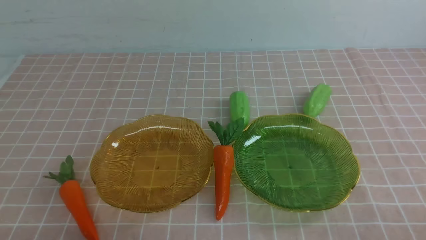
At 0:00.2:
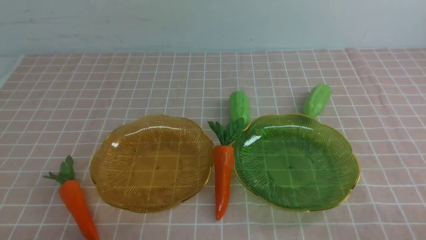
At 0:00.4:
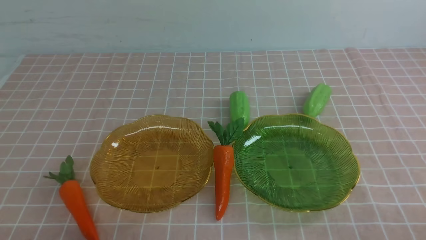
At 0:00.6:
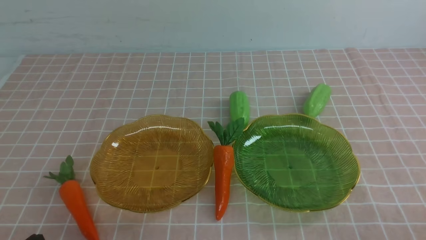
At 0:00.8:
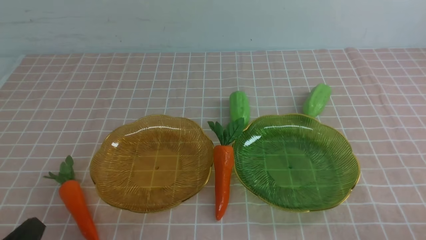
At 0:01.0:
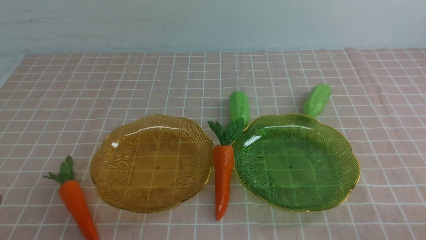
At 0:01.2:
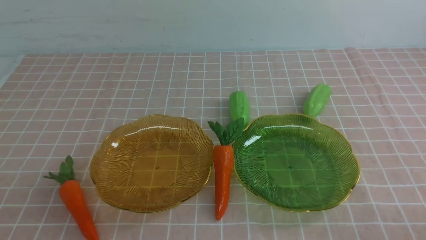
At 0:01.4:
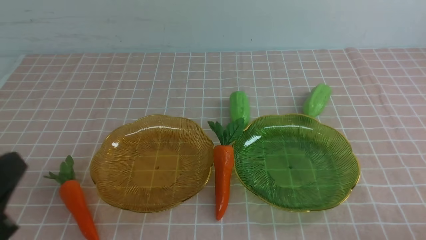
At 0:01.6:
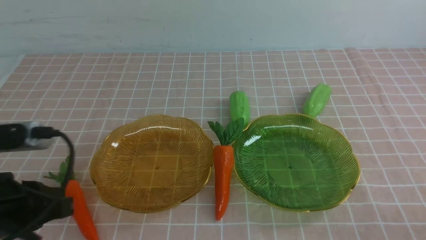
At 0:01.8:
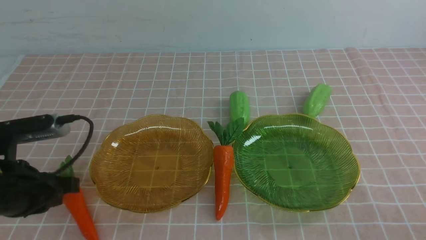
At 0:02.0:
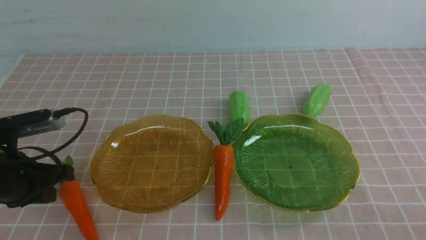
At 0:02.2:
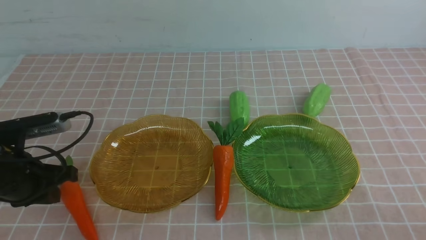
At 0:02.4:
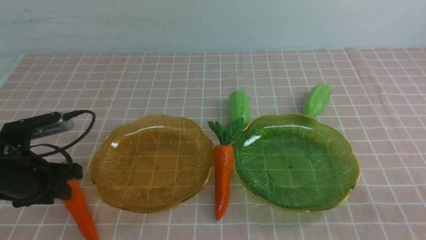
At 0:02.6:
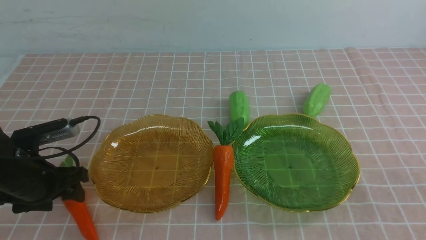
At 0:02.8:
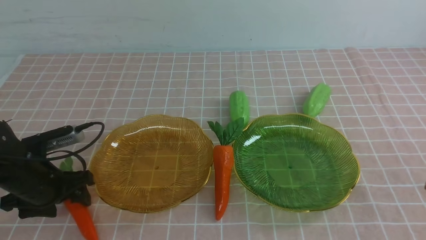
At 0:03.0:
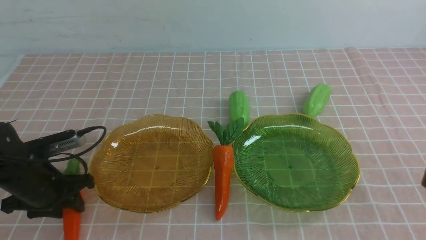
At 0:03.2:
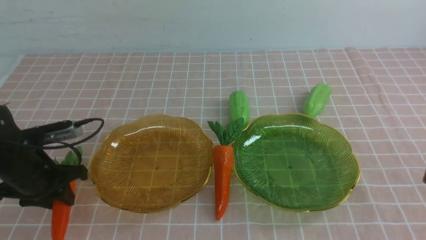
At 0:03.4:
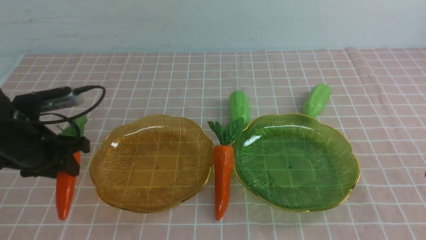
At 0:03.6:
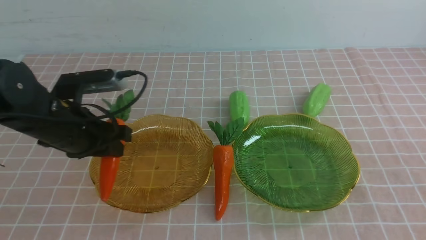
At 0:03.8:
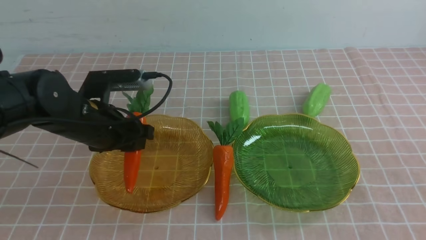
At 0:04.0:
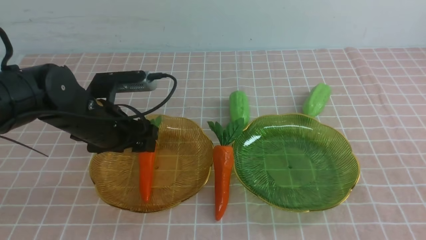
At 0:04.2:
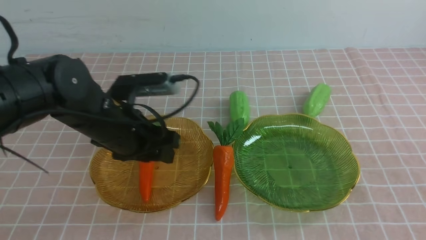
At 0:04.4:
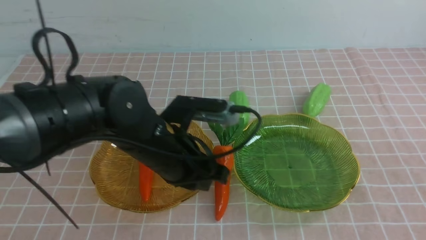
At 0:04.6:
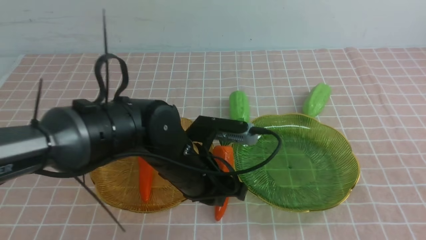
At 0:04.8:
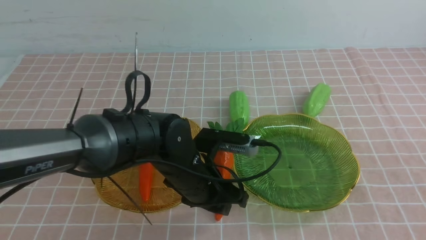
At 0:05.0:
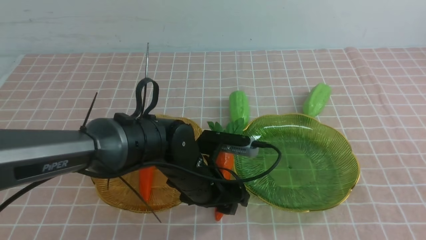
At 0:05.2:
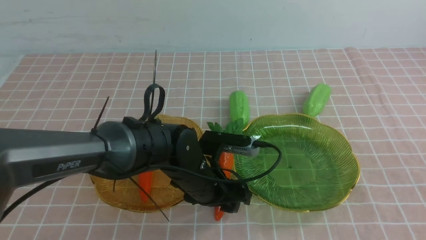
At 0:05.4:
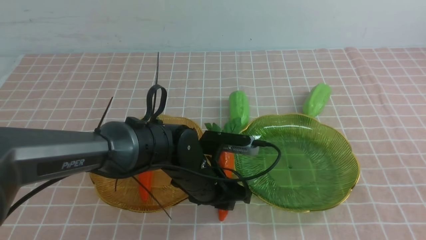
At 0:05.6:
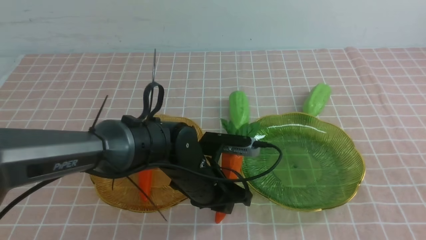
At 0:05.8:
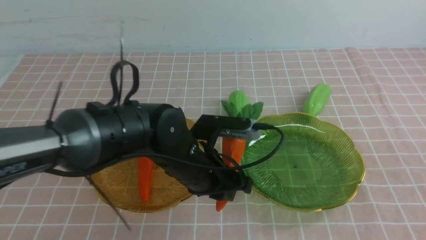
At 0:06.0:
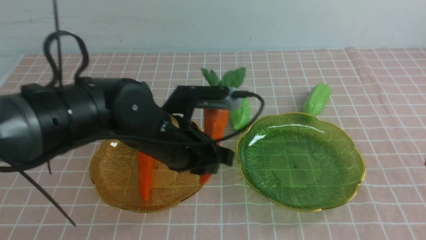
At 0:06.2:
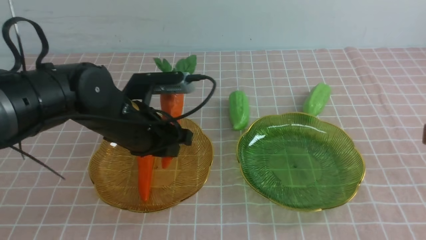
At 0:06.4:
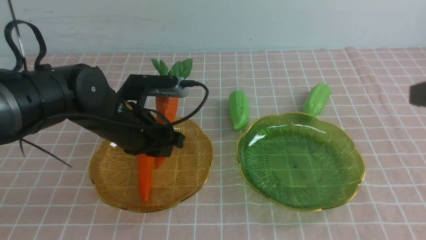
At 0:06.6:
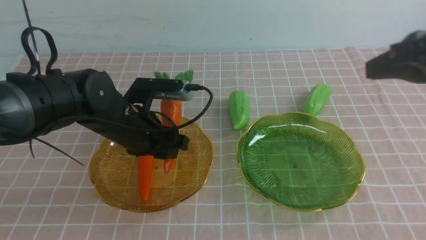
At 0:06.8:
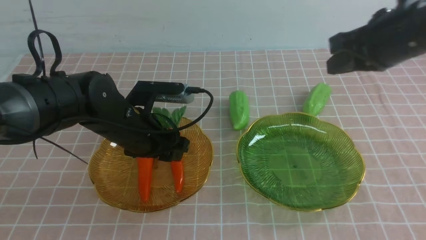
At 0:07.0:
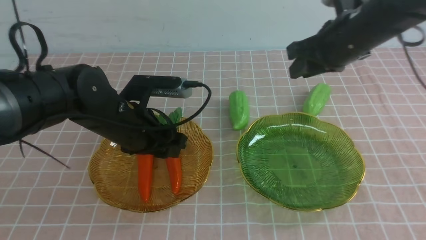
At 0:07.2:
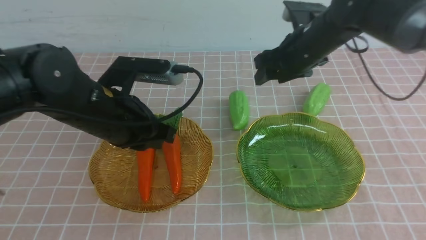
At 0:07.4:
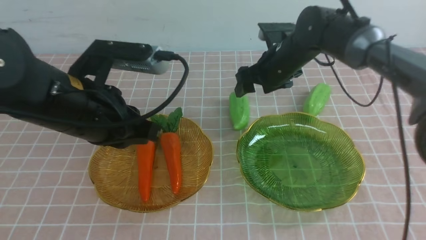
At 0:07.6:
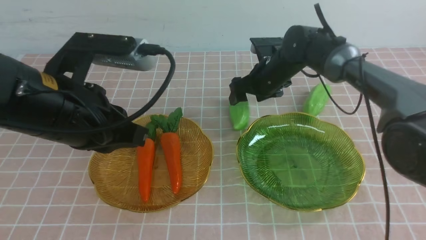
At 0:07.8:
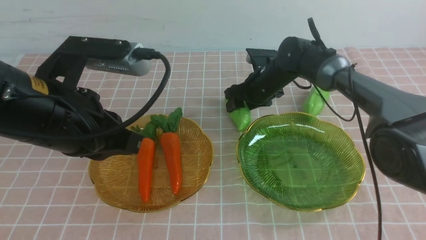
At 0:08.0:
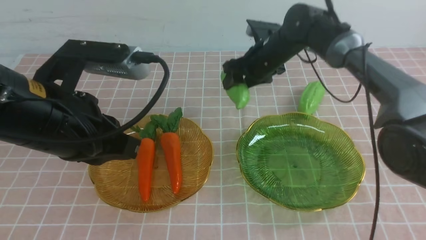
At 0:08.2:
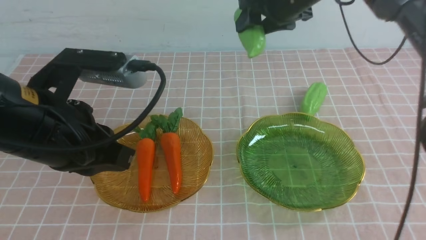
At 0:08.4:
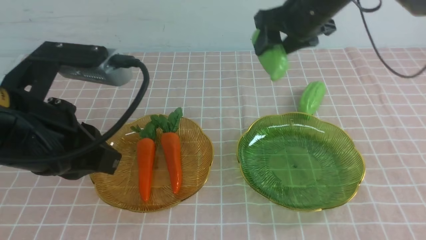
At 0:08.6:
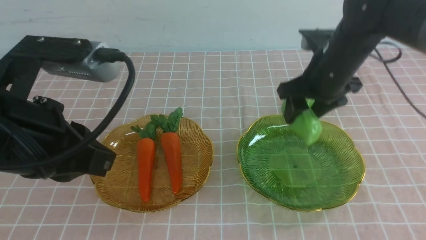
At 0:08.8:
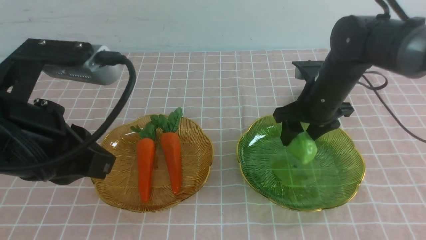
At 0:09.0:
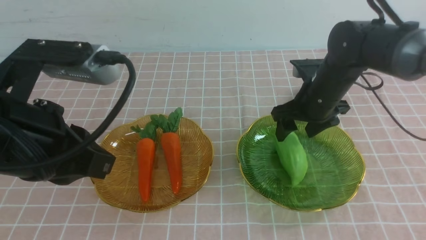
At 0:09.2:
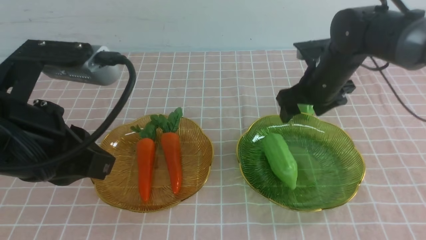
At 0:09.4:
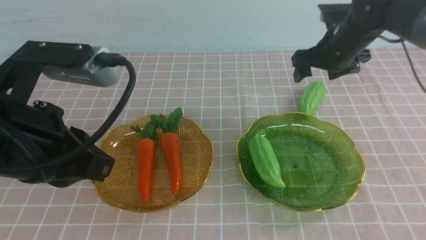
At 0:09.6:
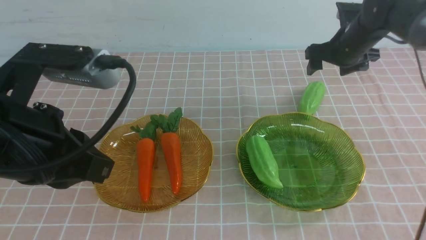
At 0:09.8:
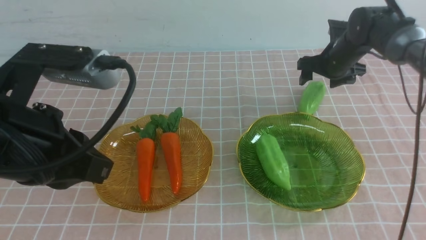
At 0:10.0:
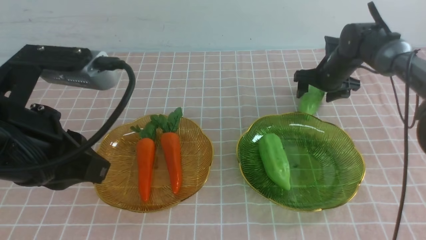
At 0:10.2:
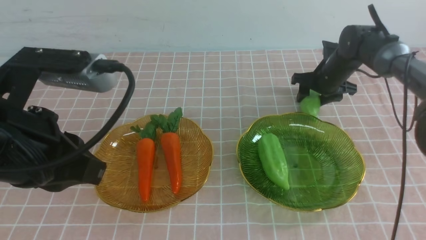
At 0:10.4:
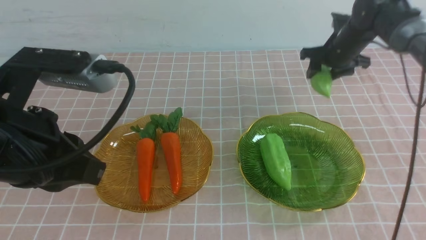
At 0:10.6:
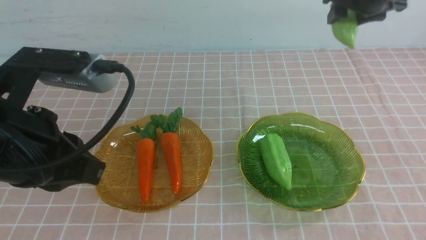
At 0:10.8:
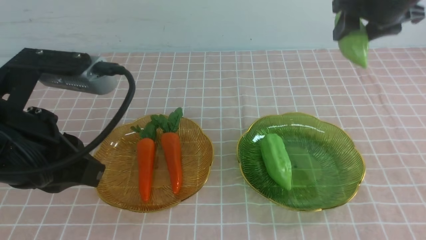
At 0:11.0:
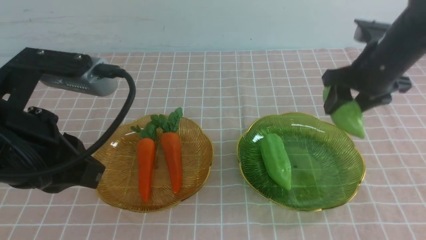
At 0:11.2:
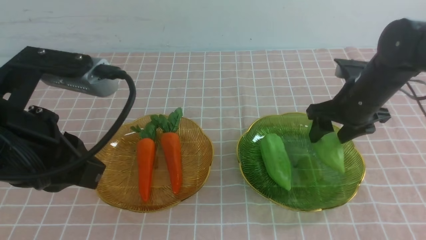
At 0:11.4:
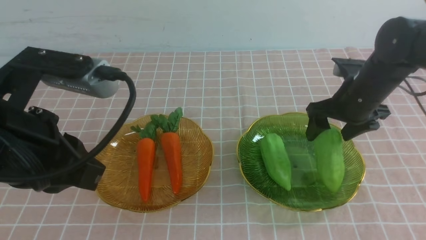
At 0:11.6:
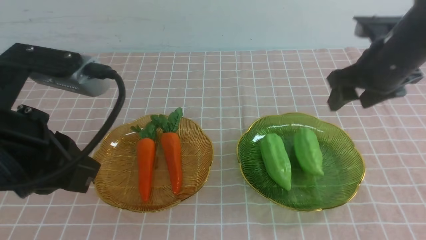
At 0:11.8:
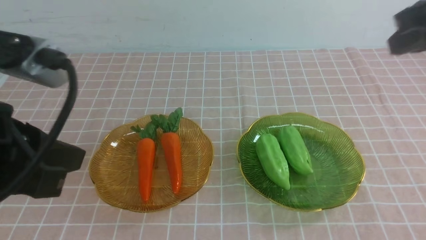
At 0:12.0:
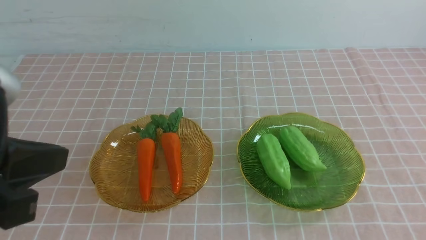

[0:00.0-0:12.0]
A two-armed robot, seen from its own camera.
Step, 0:00.0 to 0:07.0: use the left arm to grab a carrot and put it into the left plate.
Step, 0:07.2 to 0:08.8: use the right arm to grab a chayote and put it into the right plate.
Step, 0:09.2 to 0:11.4: use the right arm to grab a chayote and put it into the right plate.
0:00.0 to 0:01.6: The left gripper shifts about 15 cm upward and forward.
0:01.6 to 0:03.0: The left gripper shifts approximately 15 cm forward and downward, and opens its fingers.
0:03.0 to 0:04.4: The left gripper travels to the right by approximately 20 cm.
0:04.4 to 0:06.0: The right gripper shifts some 20 cm forward, while the left gripper goes approximately 10 cm to the left and upward, and closes and opens again.
0:06.0 to 0:07.6: The right gripper moves forward and to the left, roughly 20 cm, and opens its fingers; the left gripper shifts some 20 cm upward and backward, and closes.
0:07.6 to 0:09.0: The right gripper travels downward, to the right and forward by roughly 20 cm.
0:09.0 to 0:10.4: The right gripper moves up and down over roughly 20 cm, changing direction 2 times, and closes its fingers.
0:10.4 to 0:12.0: The right gripper travels backward by some 40 cm, and closes its fingers. Meanwhile the left gripper moves backward, about 10 cm.

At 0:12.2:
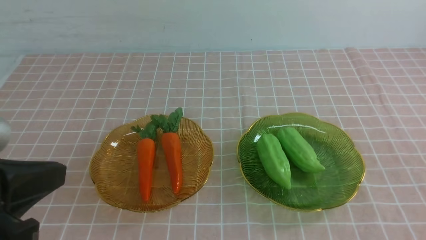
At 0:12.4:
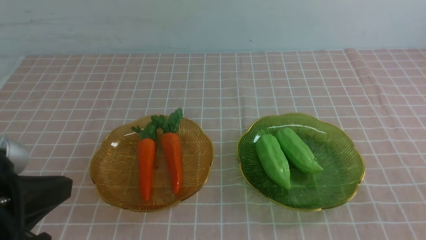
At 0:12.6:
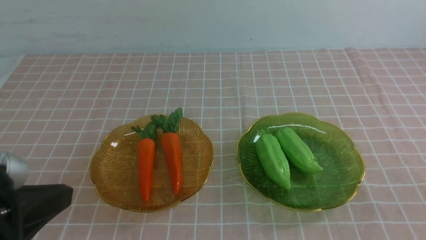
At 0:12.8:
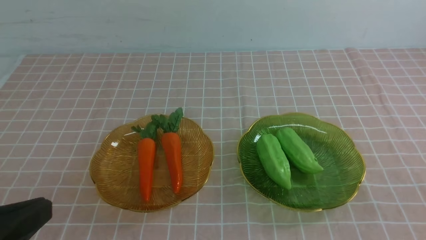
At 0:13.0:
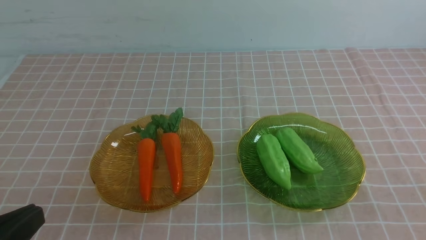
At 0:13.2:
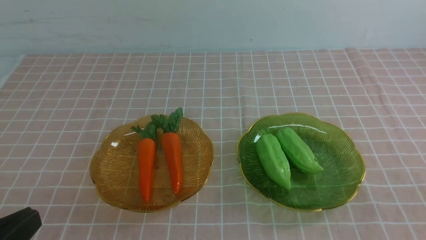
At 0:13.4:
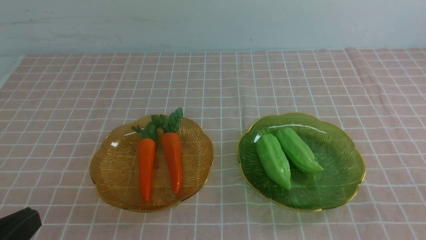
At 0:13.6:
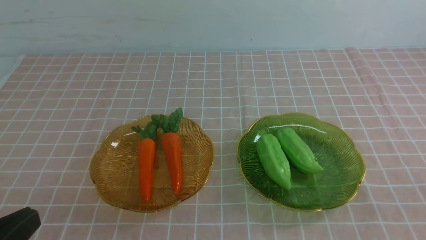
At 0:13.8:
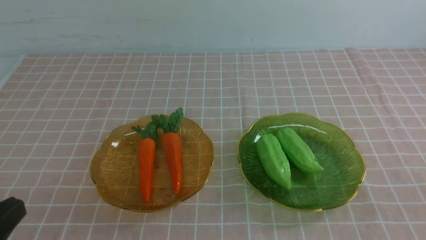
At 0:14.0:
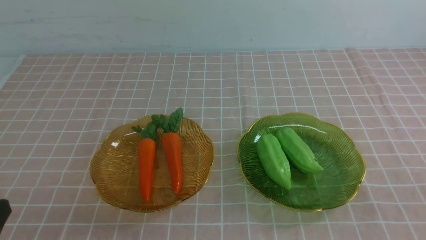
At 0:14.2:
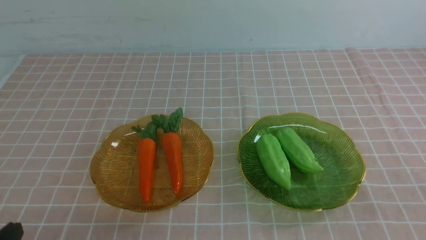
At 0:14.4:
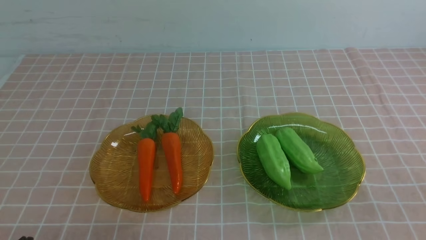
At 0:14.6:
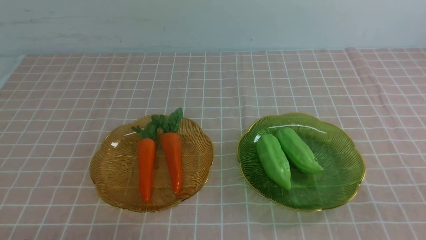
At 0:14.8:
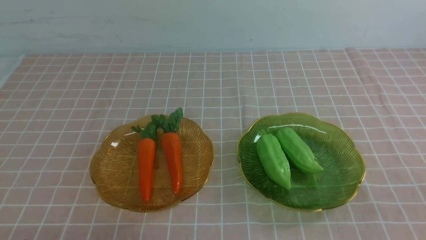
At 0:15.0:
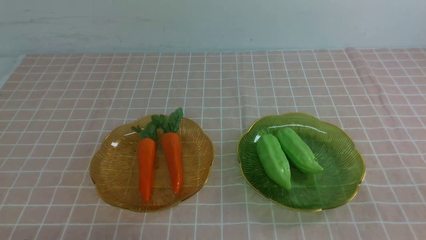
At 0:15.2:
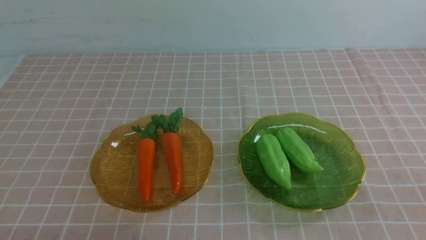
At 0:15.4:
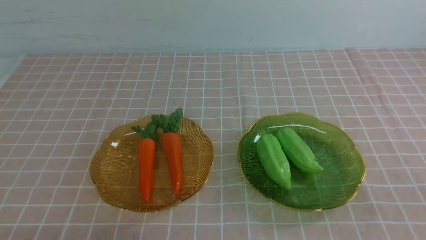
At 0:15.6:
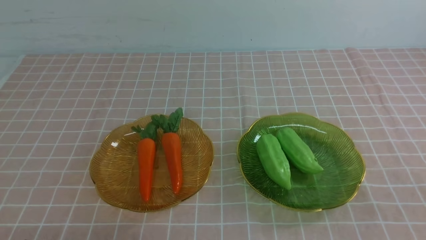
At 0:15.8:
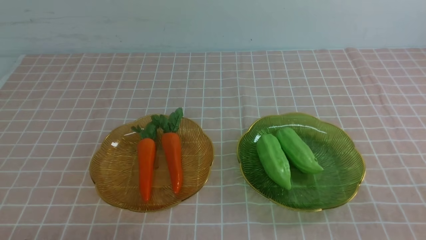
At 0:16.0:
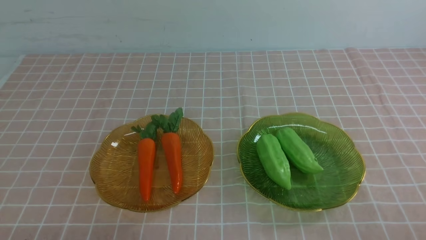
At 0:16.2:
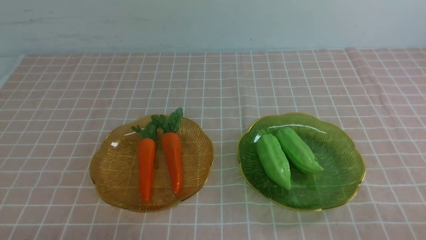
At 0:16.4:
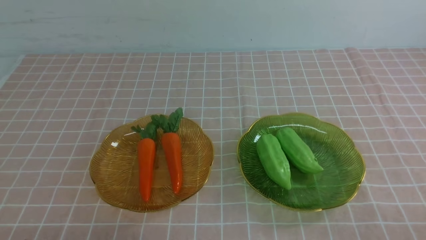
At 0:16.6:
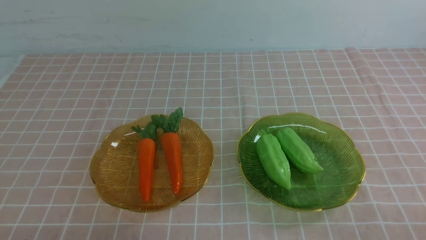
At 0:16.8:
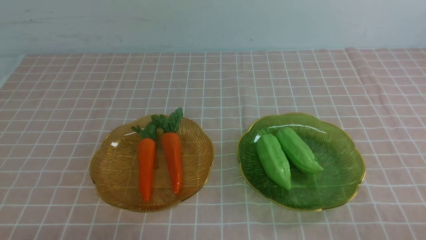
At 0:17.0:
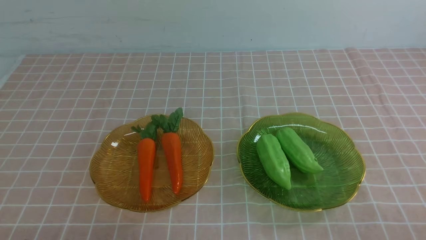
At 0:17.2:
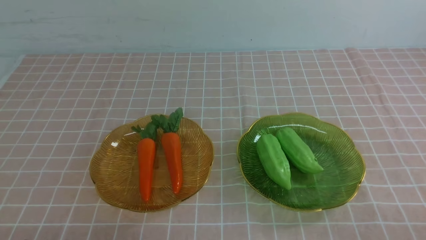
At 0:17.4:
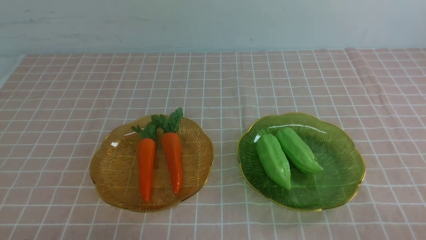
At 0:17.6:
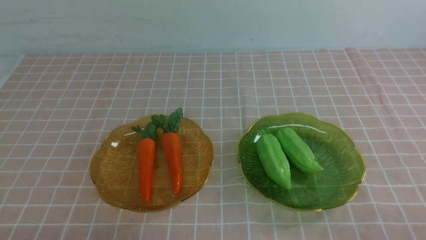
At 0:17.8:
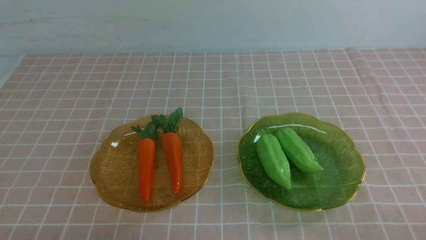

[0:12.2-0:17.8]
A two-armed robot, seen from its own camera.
0:12.2 to 0:13.6: The left gripper moves about 5 cm.
0:13.6 to 0:15.0: The left gripper moves downward, some 10 cm.
0:16.4 to 0:17.8: The two grippers keep their place.
